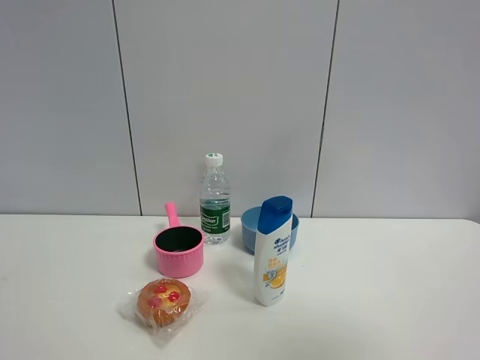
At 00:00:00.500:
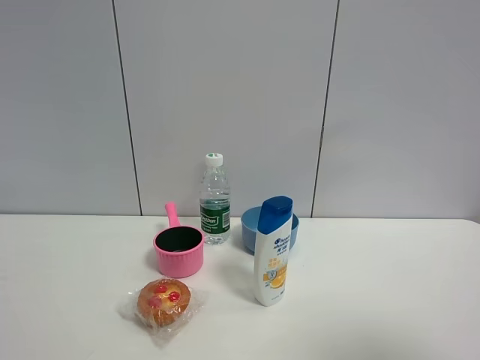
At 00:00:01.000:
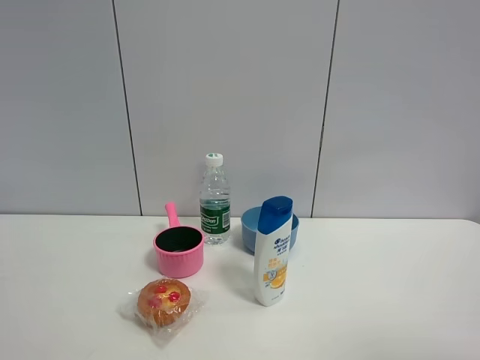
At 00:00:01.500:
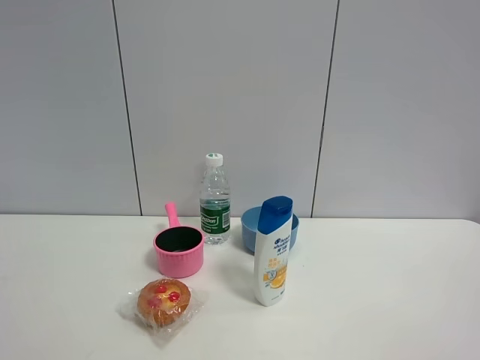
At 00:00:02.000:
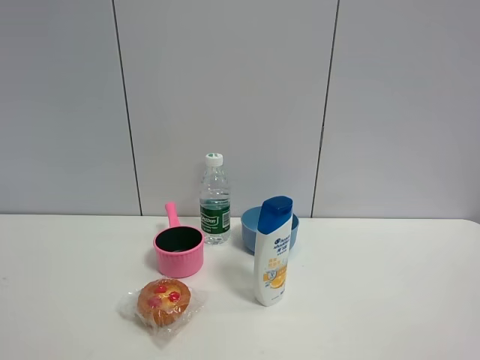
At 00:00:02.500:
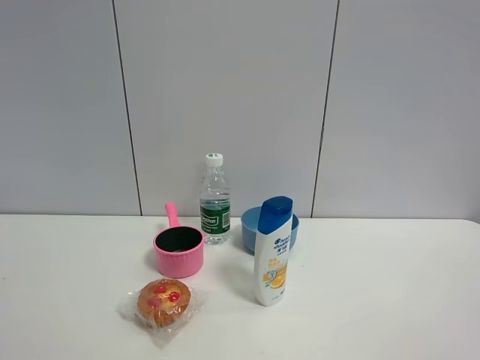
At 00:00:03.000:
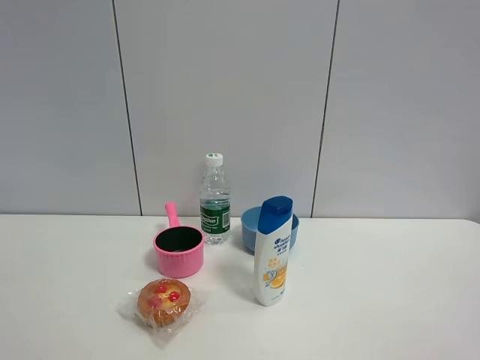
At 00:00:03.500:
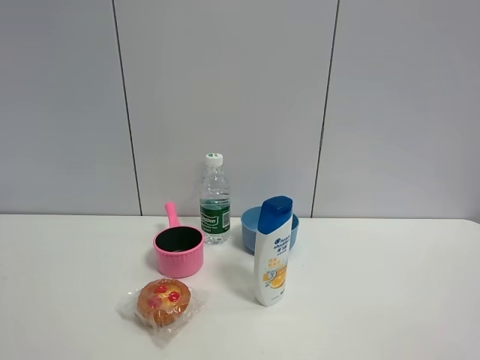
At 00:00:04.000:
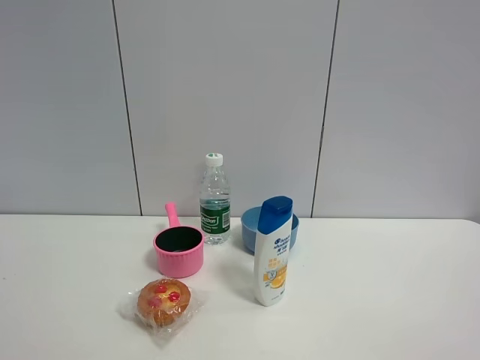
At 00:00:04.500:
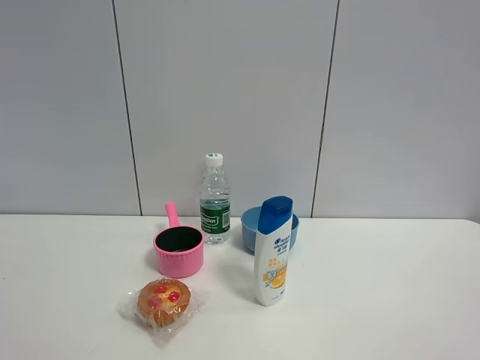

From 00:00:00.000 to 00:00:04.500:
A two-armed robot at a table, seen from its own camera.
Task of the whole recording: the gripper move the object.
From 00:00:00.000 to 00:00:02.000: The right gripper moves downward, backward and to the right, approximately 15 cm.

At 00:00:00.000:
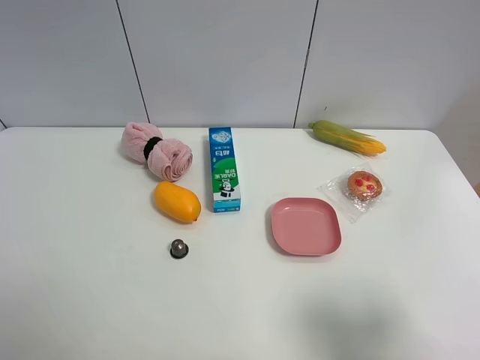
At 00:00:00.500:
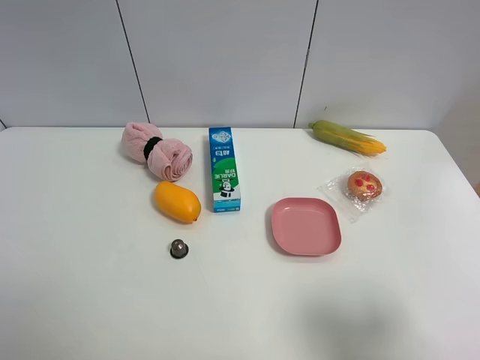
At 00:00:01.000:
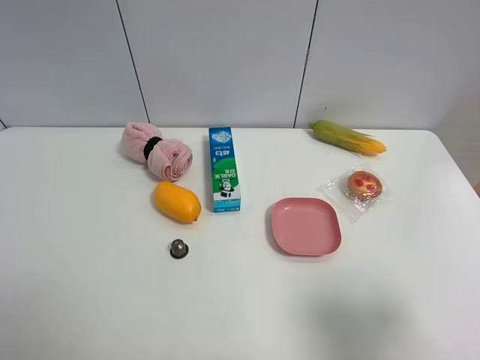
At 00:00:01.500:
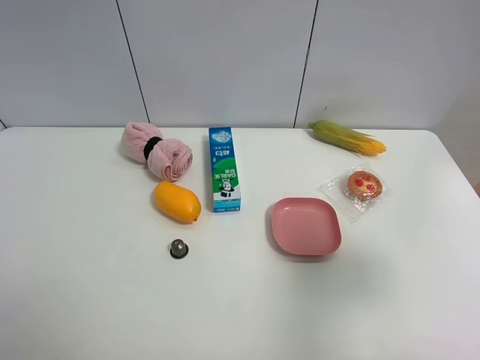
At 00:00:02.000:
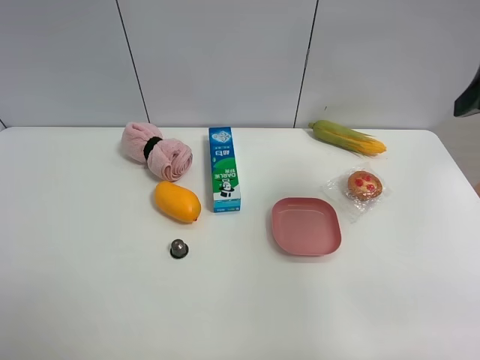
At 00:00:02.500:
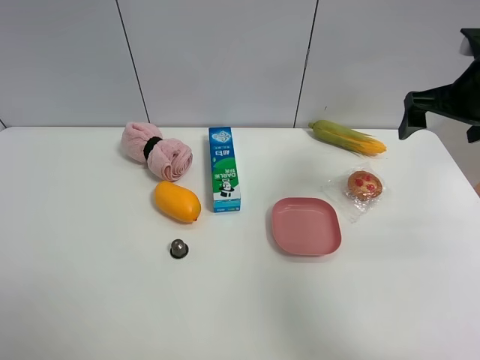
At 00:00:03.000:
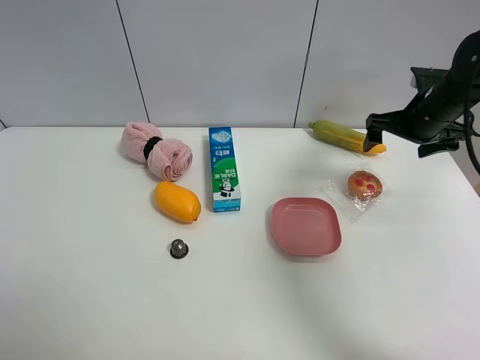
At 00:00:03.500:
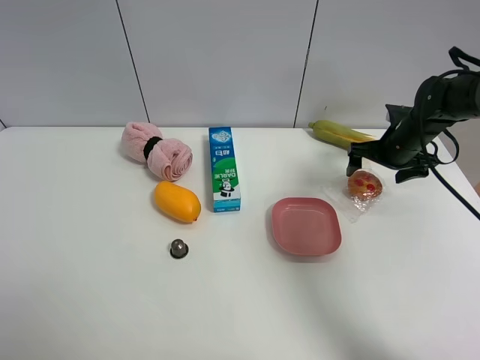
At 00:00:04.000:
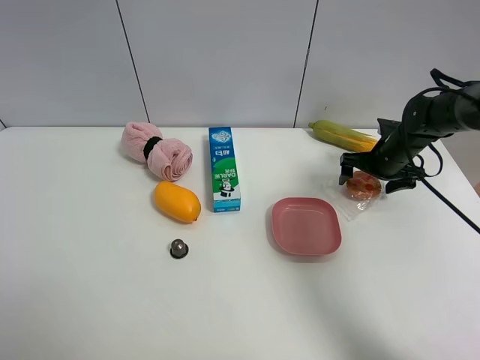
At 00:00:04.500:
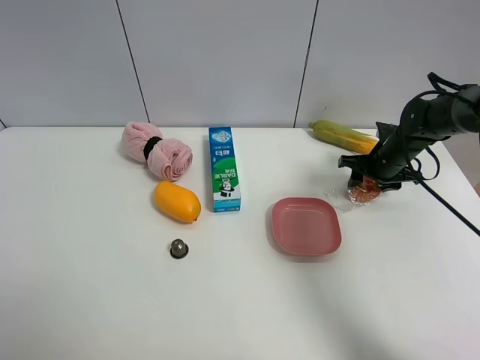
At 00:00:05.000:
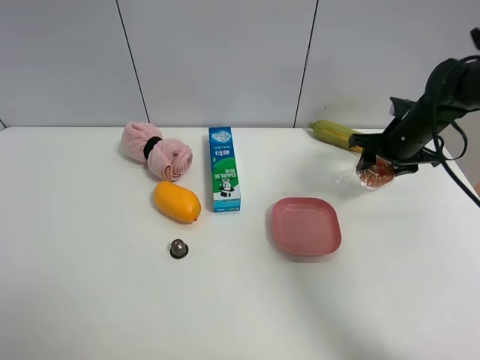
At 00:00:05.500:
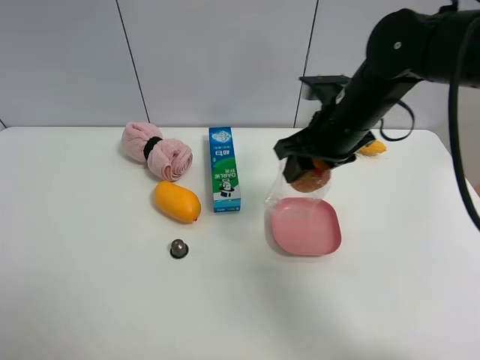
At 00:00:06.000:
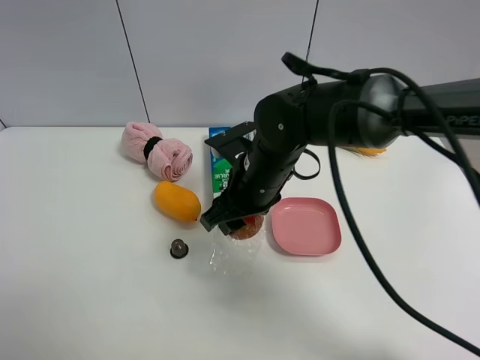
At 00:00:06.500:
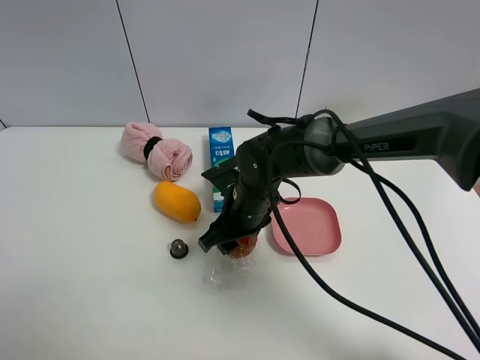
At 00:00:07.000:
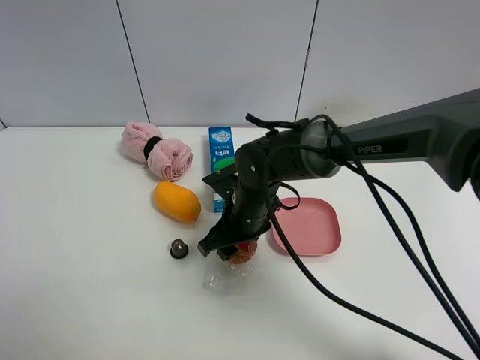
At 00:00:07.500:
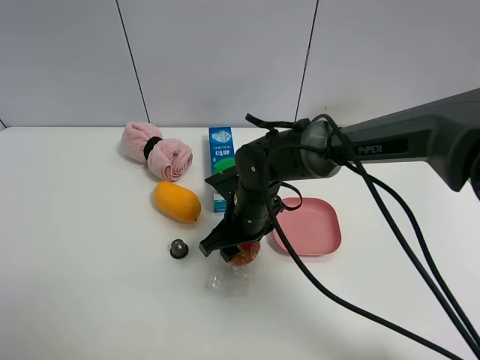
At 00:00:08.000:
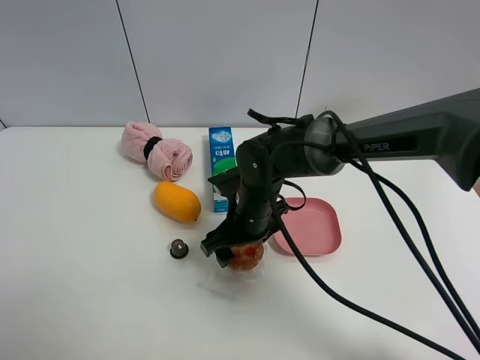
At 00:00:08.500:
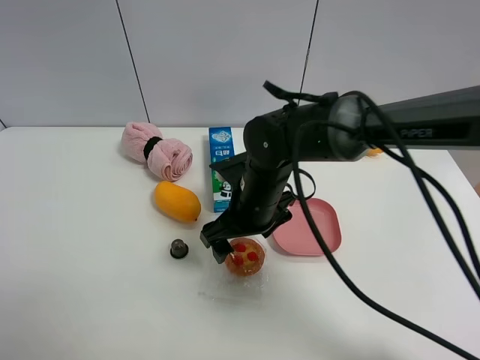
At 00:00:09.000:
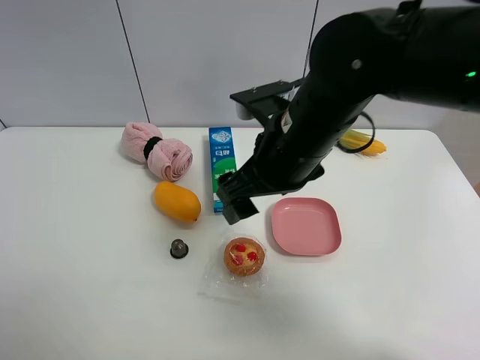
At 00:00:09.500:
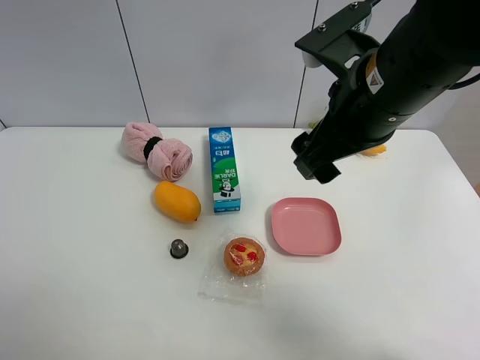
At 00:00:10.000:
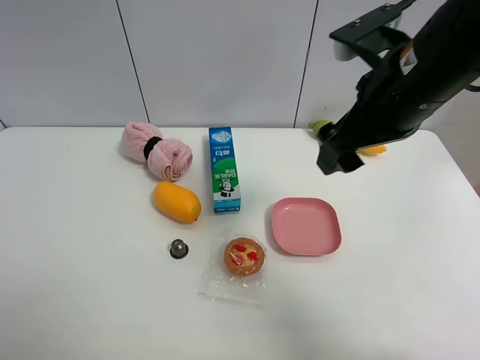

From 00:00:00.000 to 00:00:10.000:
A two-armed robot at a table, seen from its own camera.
Task of the whole recording: the gripper move the object.
Step, from 00:00:00.000 to 00:00:04.500: Grasp the egg tart with the right gripper.
Step, from 00:00:05.000 to 00:00:08.000: Place the egg tart on the table with the right gripper.
From 00:00:00.000 to 00:00:02.000: The right gripper goes approximately 25 cm forward and upward.
From 00:00:02.000 to 00:00:04.000: The right gripper moves downward and forward, approximately 30 cm.
From 00:00:04.000 to 00:00:06.000: The right gripper shifts roughly 30 cm to the left and backward, and closes up.
From 00:00:06.000 to 00:00:08.000: The right gripper shifts roughly 5 cm downward, and opens its fingers.
From 00:00:08.000 to 00:00:10.000: The right gripper heads upward and to the right, covering approximately 25 cm.

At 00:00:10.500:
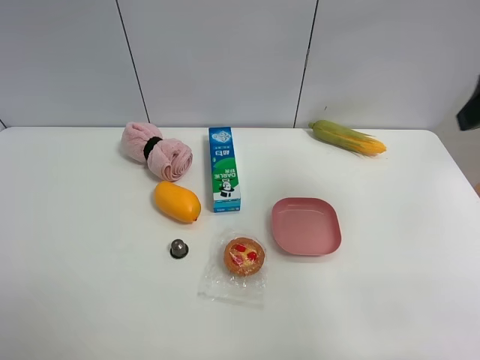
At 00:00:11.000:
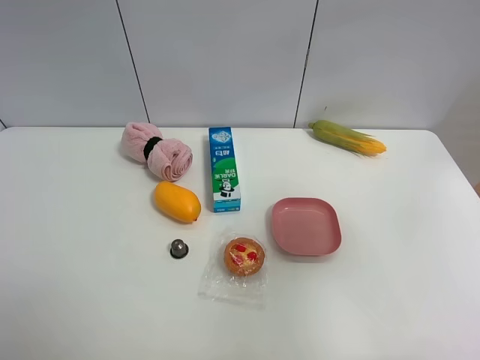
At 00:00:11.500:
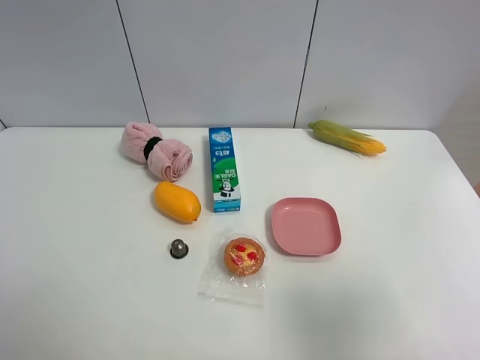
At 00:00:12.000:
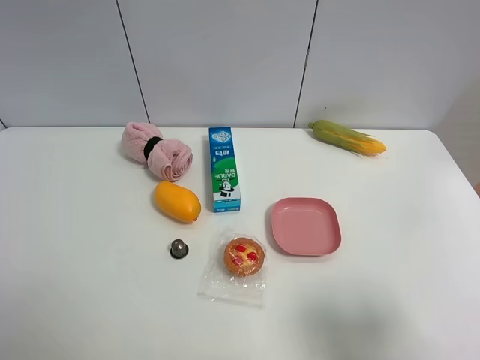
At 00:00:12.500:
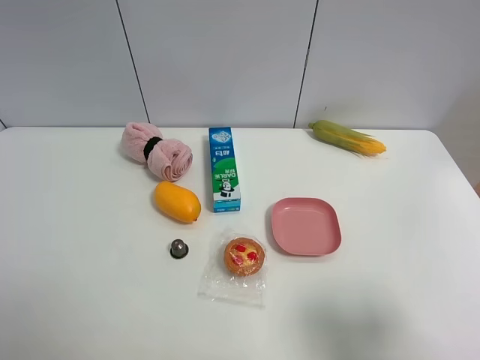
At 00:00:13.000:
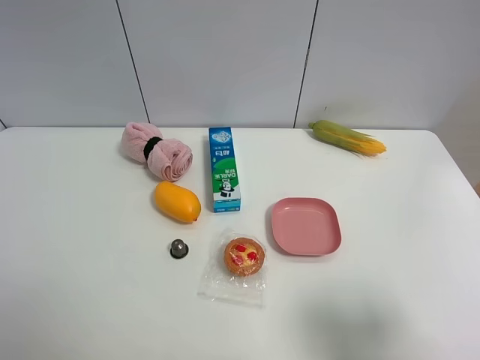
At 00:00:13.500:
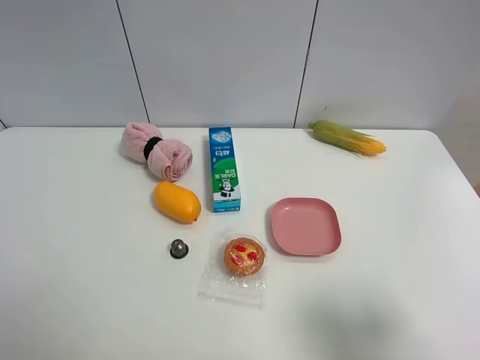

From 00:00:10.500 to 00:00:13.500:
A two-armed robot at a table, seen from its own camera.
Task of the whole recording: the gripper move the object.
From 00:00:10.500 to 00:00:12.000: The right gripper shifts approximately 25 cm backward and downward.
From 00:00:12.000 to 00:00:13.500: Both grippers stay put.
